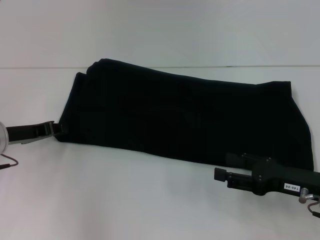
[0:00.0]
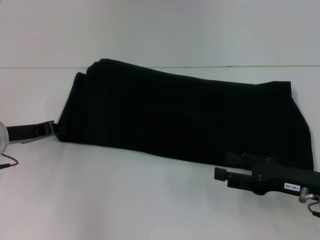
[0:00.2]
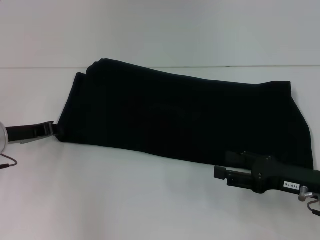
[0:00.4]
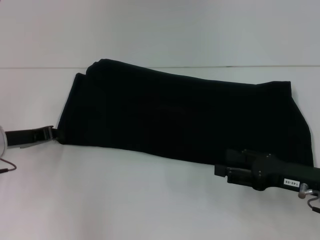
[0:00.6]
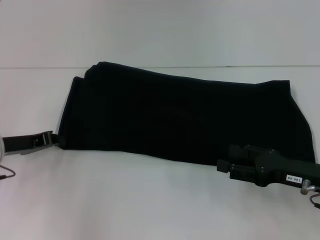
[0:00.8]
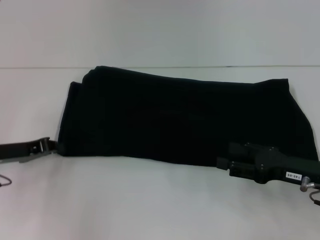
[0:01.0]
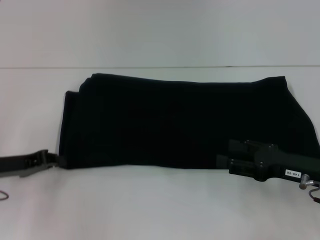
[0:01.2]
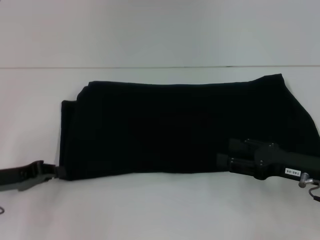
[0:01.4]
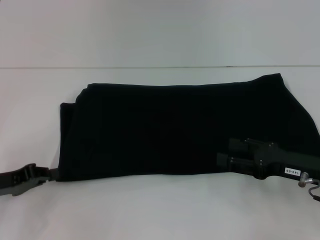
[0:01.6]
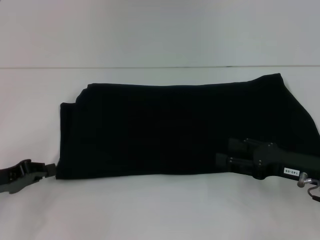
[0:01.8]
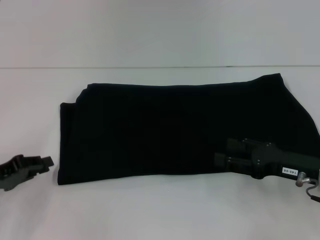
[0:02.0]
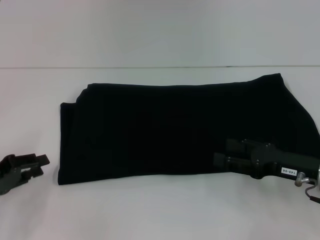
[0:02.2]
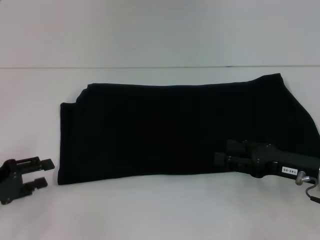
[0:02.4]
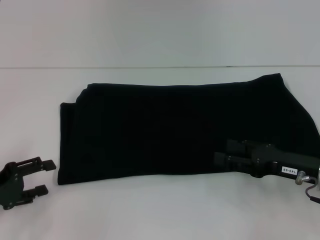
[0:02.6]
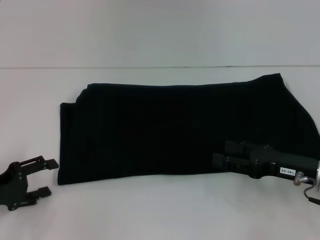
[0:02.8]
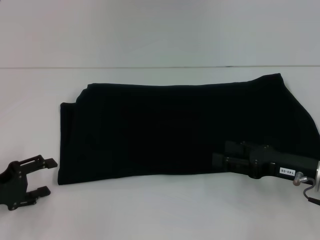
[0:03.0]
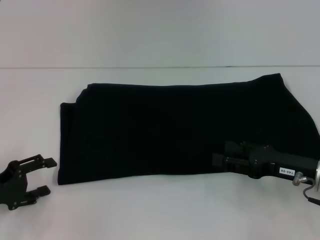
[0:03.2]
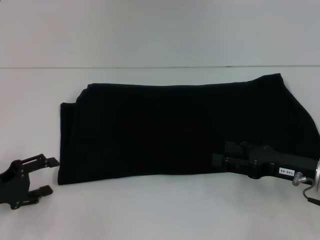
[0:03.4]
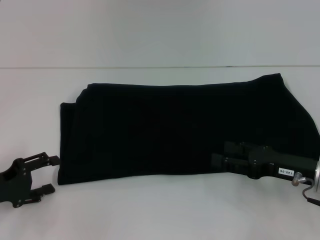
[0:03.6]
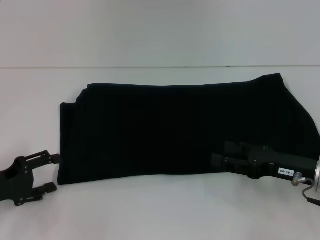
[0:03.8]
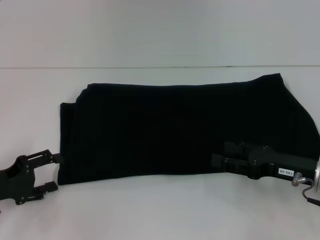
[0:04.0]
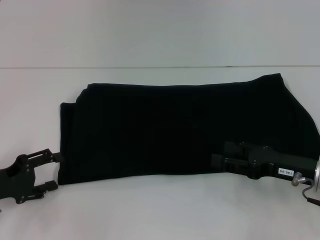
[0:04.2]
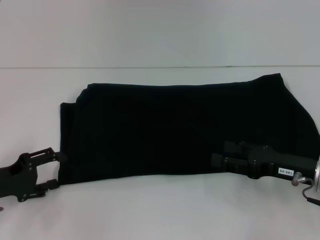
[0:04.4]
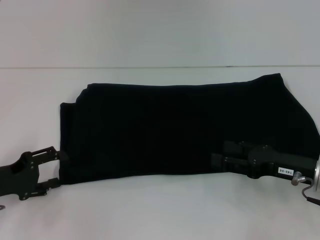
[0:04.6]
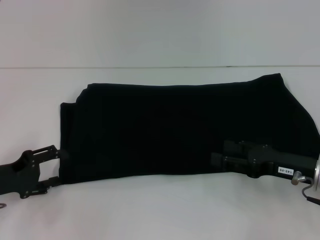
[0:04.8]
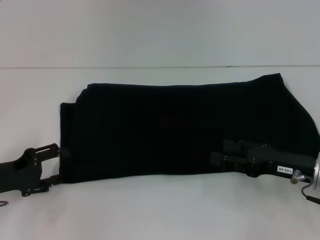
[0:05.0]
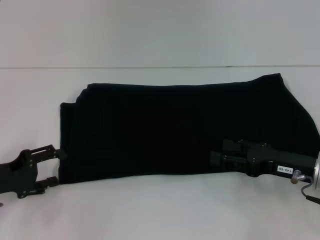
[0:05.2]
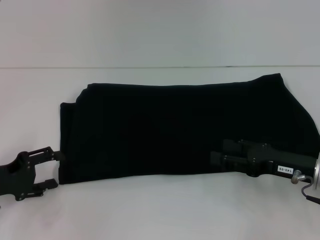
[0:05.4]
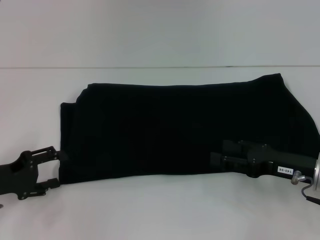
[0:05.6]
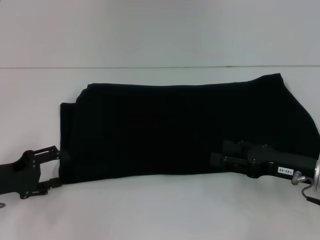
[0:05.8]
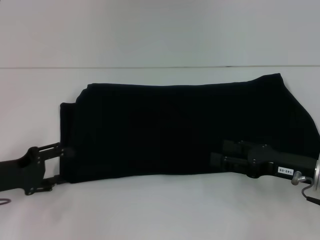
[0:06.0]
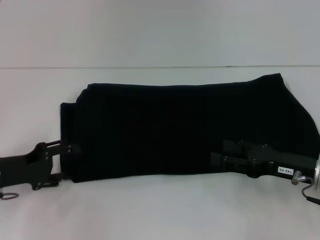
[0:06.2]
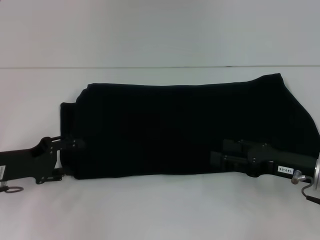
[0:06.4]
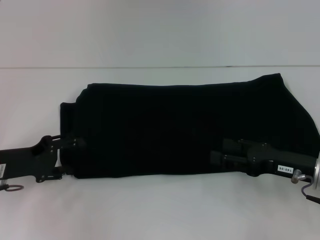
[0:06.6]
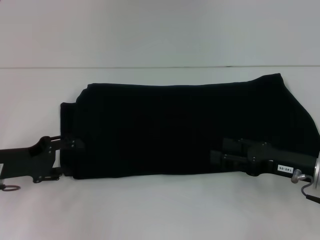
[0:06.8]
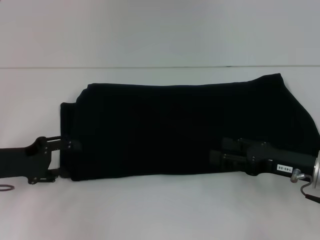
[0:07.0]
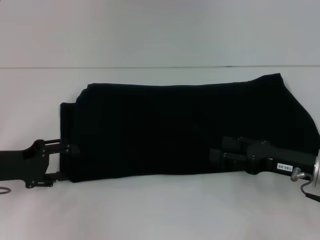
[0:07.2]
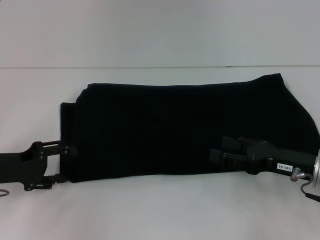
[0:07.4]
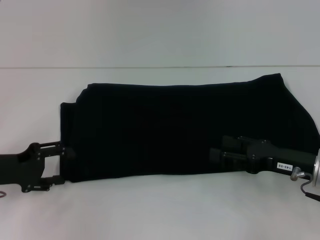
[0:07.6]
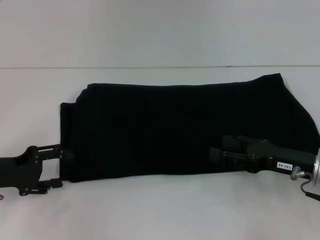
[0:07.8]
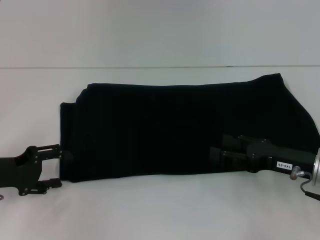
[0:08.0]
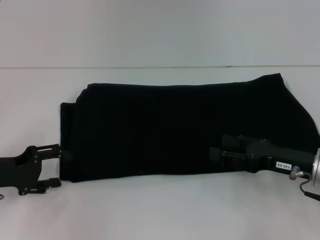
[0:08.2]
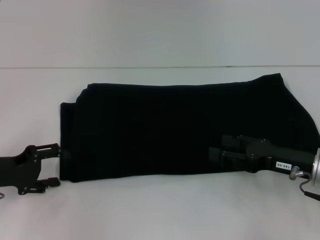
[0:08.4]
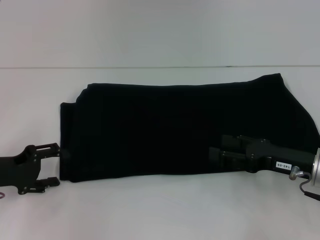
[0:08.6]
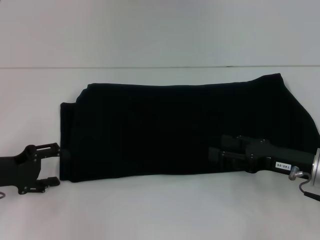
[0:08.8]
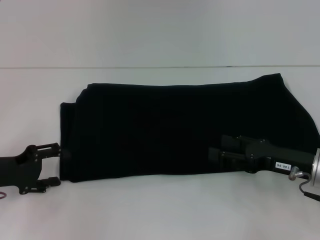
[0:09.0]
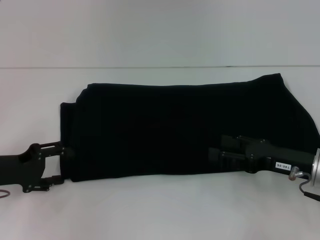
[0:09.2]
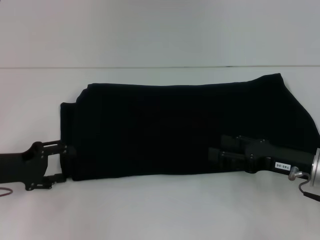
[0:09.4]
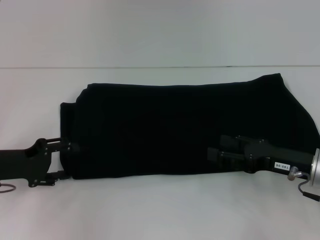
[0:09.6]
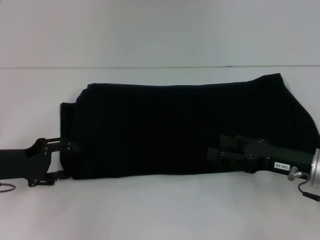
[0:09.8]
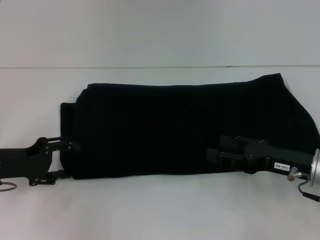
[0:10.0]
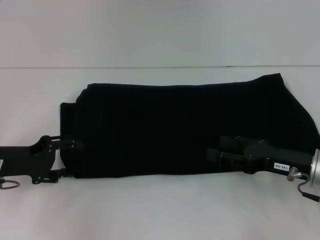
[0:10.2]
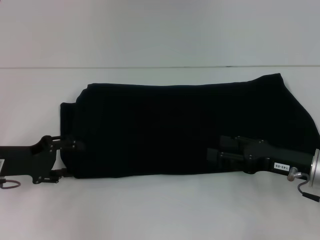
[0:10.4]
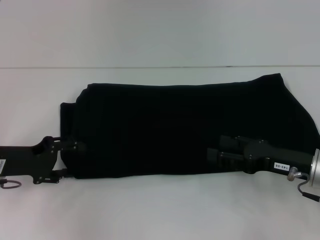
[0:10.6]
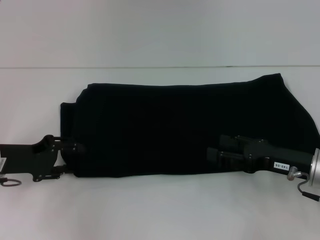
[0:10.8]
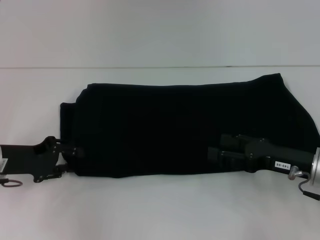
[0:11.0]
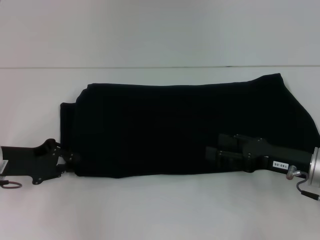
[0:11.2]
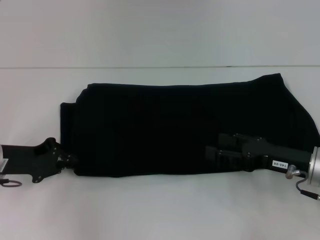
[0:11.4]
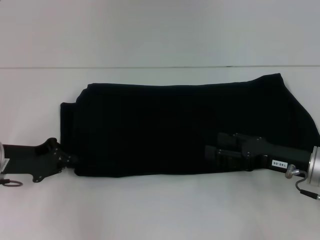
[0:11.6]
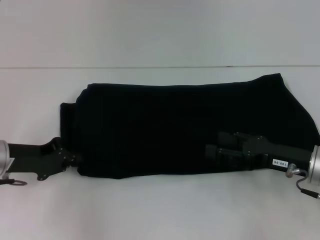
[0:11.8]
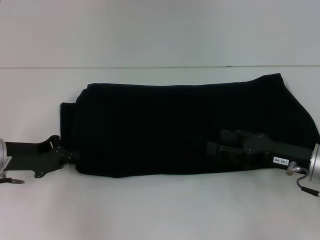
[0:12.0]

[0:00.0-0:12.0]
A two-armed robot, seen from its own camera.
0:00.0 to 0:01.6: The left gripper heads backward, covering some 10 cm.
0:01.6 to 0:03.0: The left gripper opens up.
0:03.0 to 0:06.0: The grippers stay close to where they were, moving slightly.
0:06.0 to 0:07.6: The grippers make only small movements.
0:07.6 to 0:09.0: Both grippers stay about where they are.
0:09.0 to 0:10.4: The grippers make only small movements.
0:10.4 to 0:12.0: The left gripper closes its fingers.

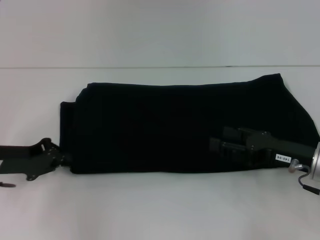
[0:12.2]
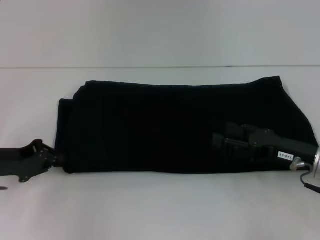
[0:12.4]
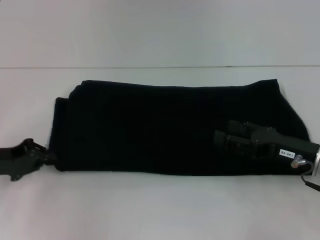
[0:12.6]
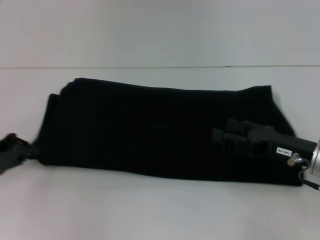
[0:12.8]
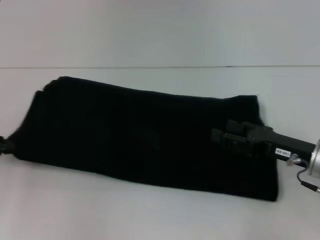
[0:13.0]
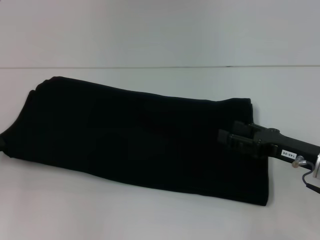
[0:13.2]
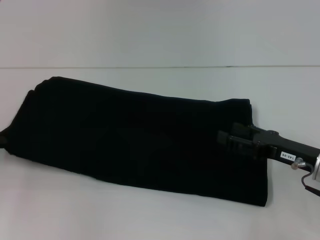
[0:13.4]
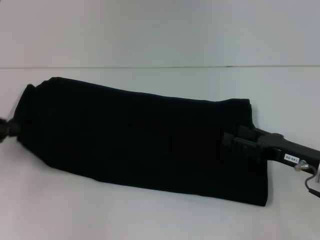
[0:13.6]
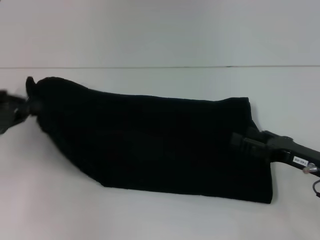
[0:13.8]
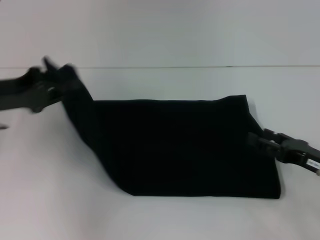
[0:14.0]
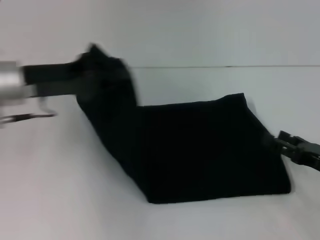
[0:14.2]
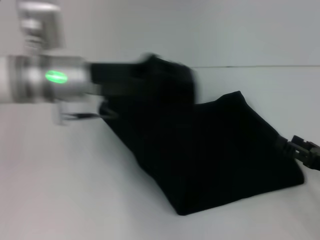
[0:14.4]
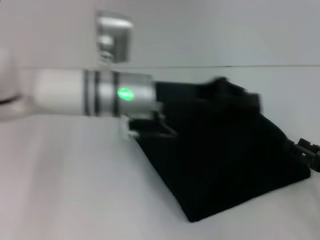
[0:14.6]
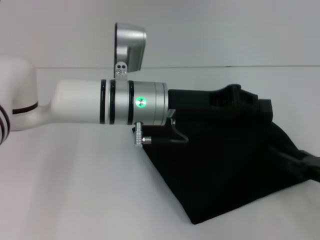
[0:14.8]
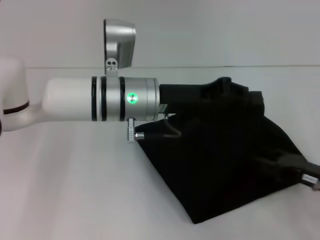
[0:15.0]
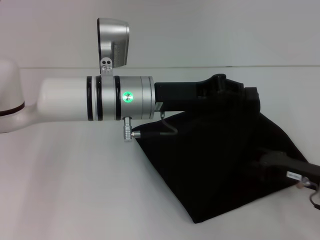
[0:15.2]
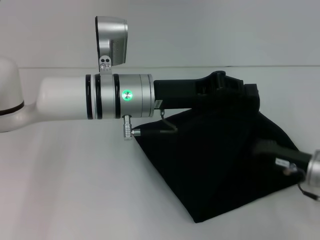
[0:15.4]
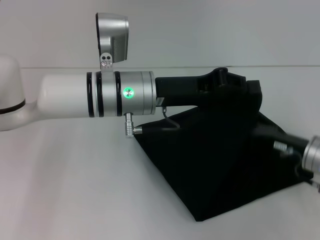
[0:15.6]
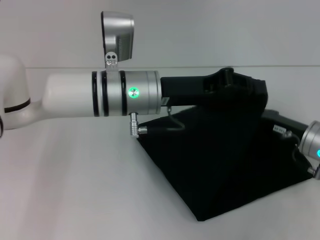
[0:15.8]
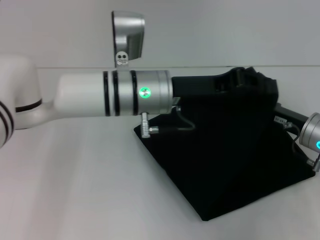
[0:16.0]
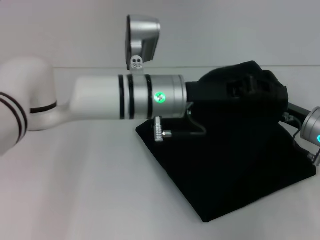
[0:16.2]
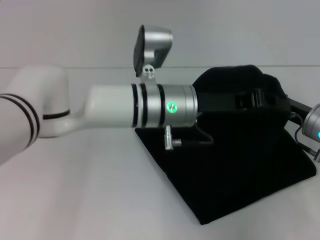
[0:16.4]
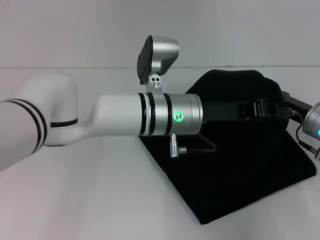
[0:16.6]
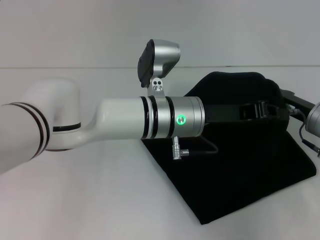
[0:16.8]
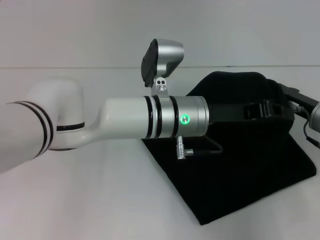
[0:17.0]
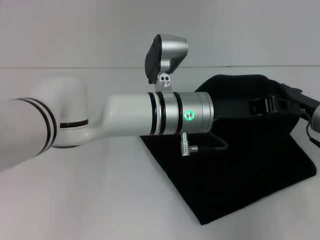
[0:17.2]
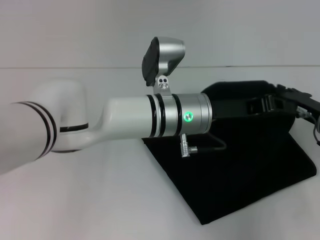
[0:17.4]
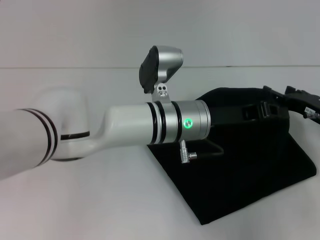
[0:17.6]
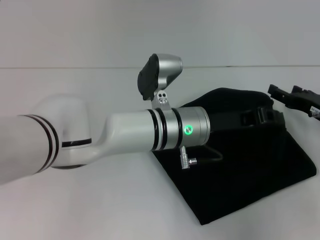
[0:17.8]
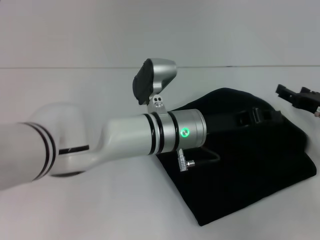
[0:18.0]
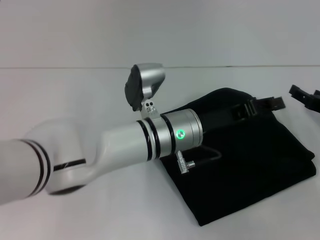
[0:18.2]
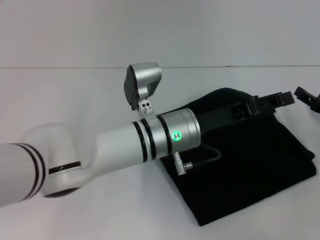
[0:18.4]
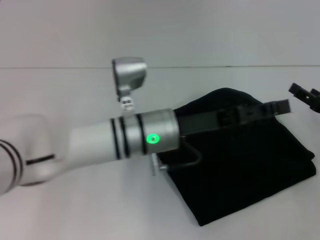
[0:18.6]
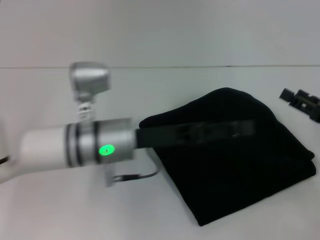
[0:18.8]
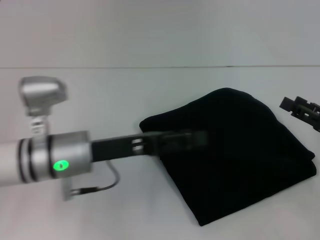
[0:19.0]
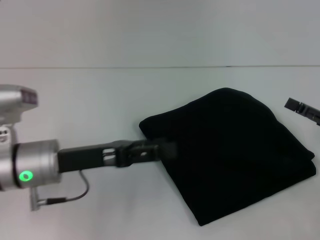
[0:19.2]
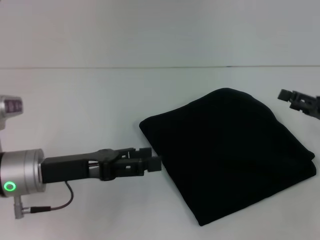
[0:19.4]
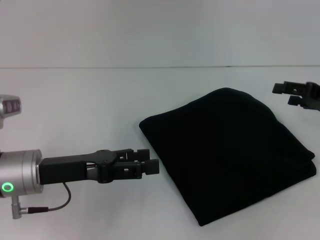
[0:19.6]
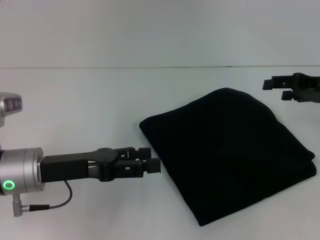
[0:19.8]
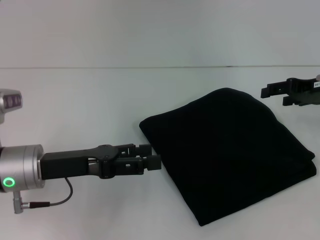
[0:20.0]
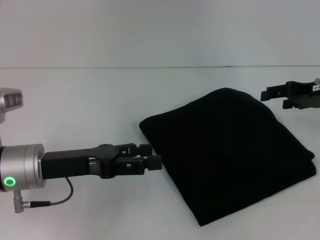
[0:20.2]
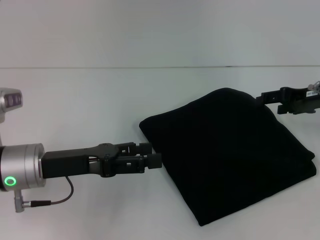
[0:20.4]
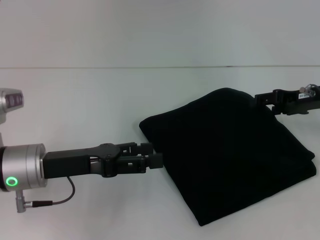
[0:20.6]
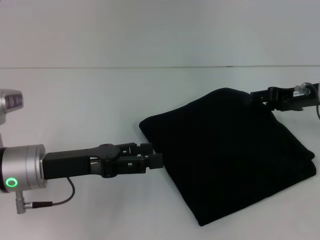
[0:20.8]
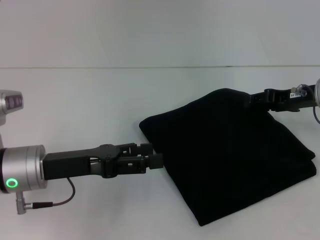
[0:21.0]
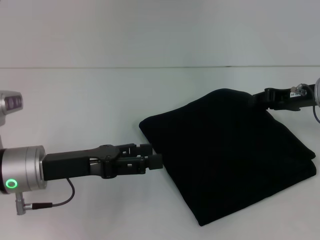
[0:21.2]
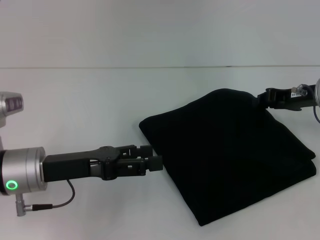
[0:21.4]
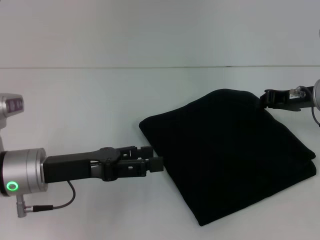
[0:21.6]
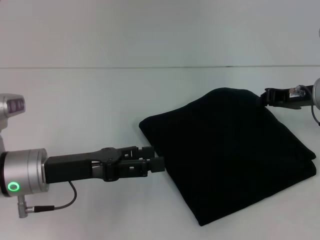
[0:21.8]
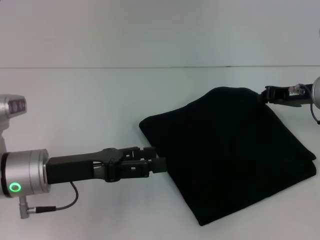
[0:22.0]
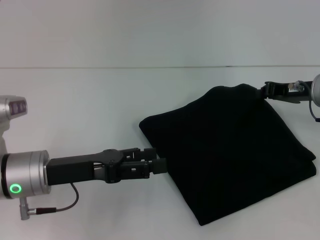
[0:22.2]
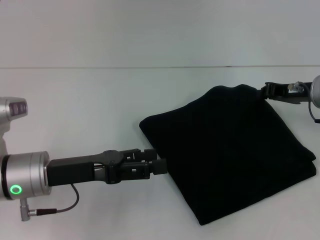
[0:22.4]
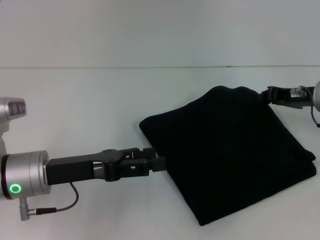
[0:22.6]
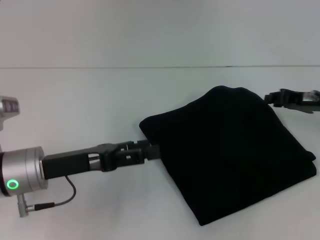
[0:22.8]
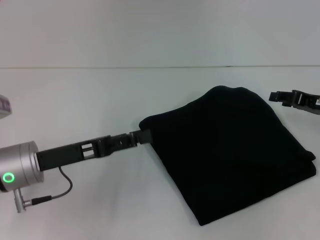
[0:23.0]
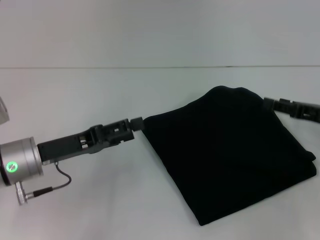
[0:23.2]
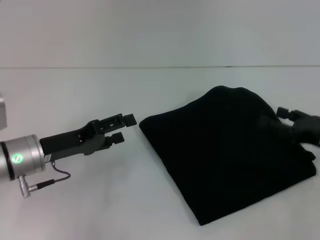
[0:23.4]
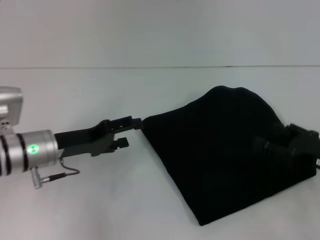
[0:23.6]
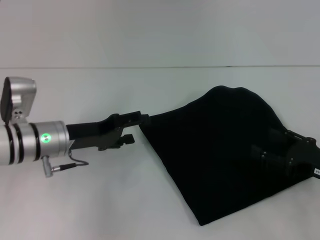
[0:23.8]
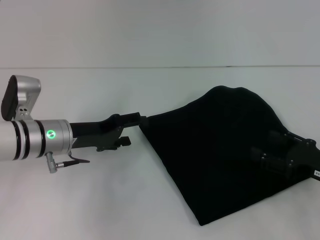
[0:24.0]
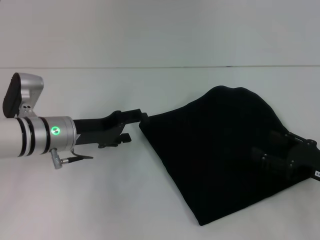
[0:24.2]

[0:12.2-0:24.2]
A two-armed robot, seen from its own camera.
Step, 0:12.2 to 0:18.4: Fold the clothes with your left hand.
0:12.2 to 0:13.8: The left gripper goes about 5 cm upward.
0:13.8 to 0:15.2: The left gripper heads to the right, covering approximately 30 cm.
0:15.2 to 0:16.6: The left gripper heads to the right, covering about 5 cm; the right gripper shifts about 10 cm forward.
0:16.6 to 0:18.2: The right gripper shifts about 5 cm to the right.
0:18.2 to 0:19.8: The right gripper travels upward and forward by some 10 cm. Meanwhile the left gripper heads to the left, covering approximately 20 cm, and opens up.
0:19.8 to 0:21.2: The grippers move only a little.
0:21.2 to 0:22.6: The right gripper closes its fingers.
0:22.6 to 0:24.2: The left gripper moves forward, about 10 cm; the right gripper heads backward and downward, covering about 15 cm, and opens up.
